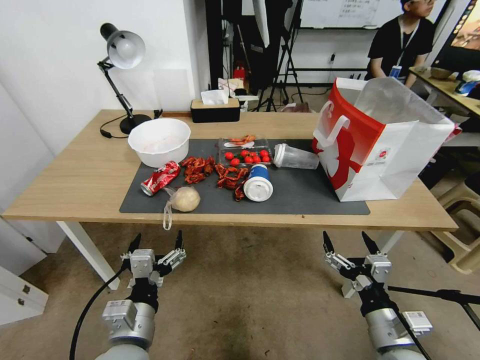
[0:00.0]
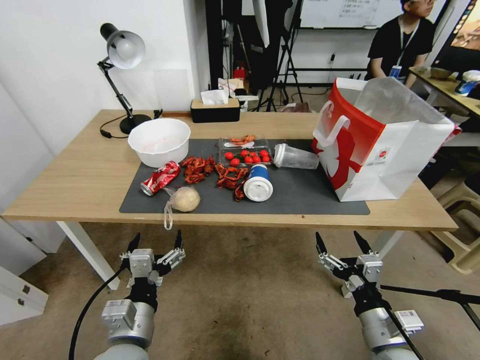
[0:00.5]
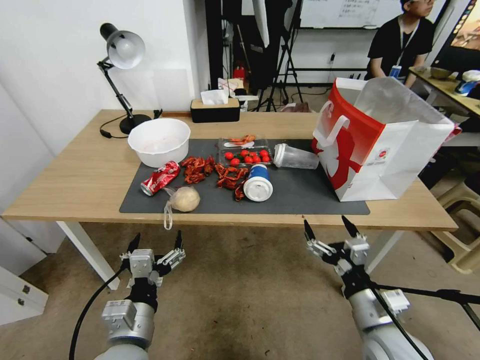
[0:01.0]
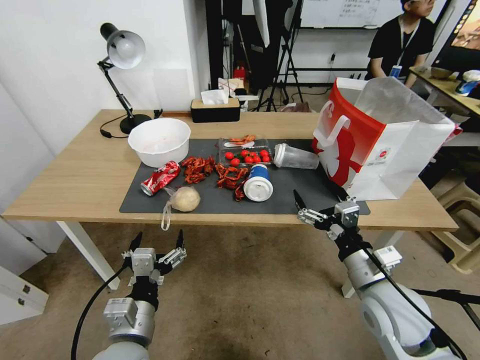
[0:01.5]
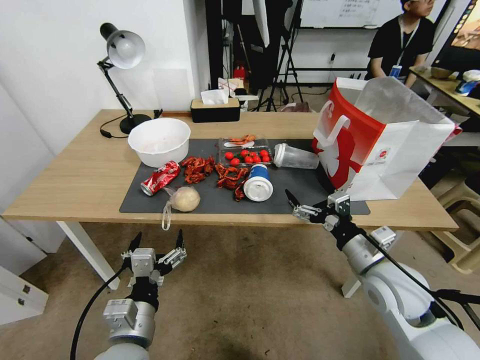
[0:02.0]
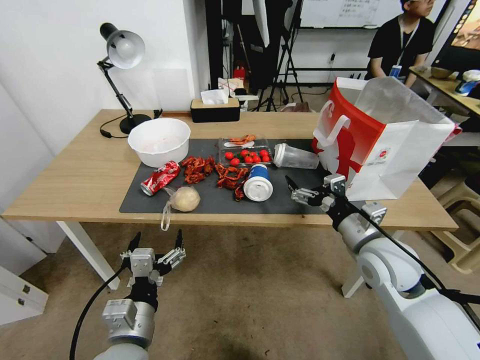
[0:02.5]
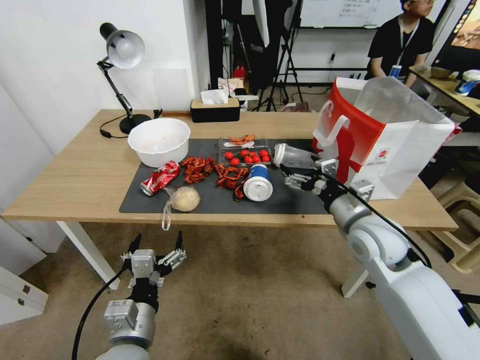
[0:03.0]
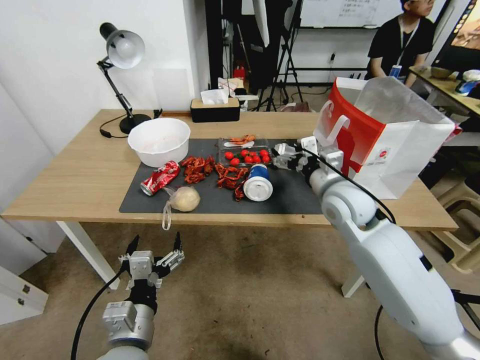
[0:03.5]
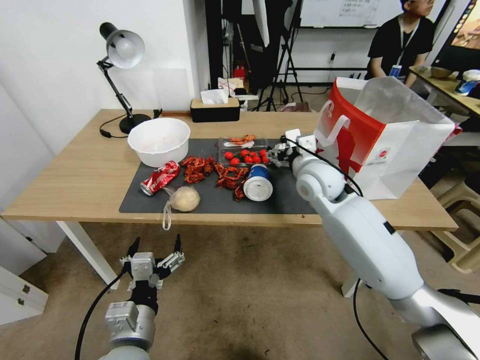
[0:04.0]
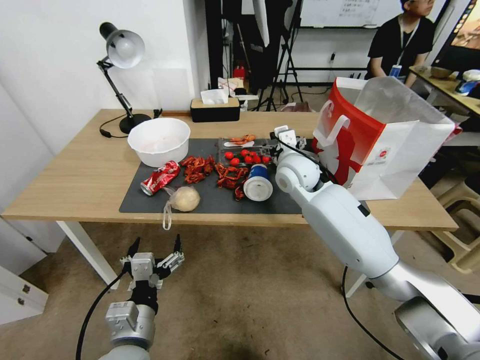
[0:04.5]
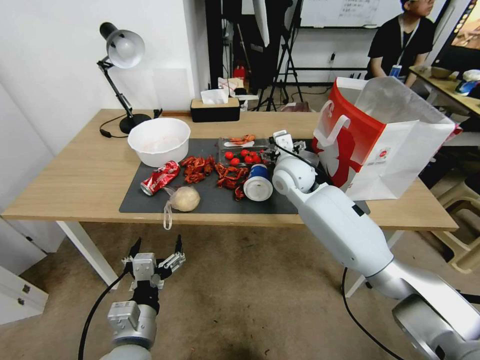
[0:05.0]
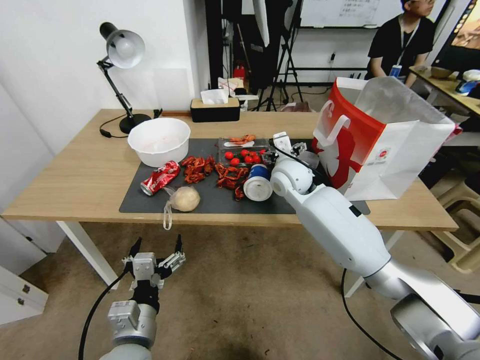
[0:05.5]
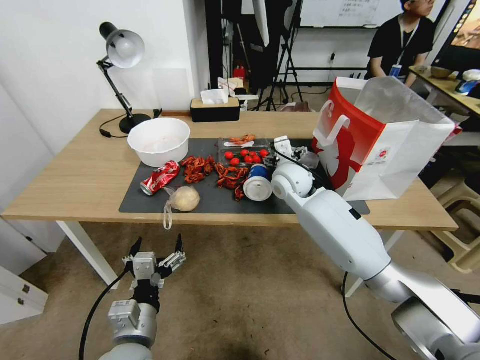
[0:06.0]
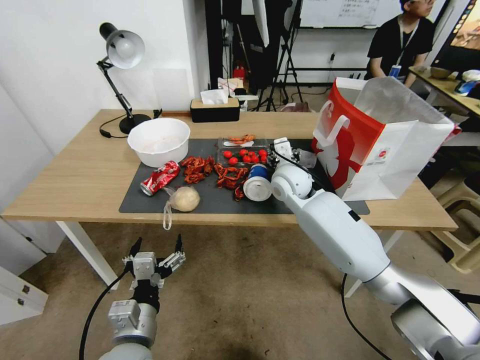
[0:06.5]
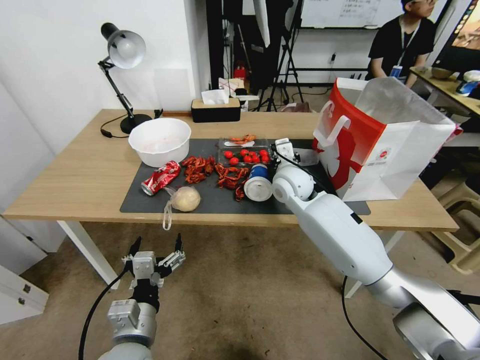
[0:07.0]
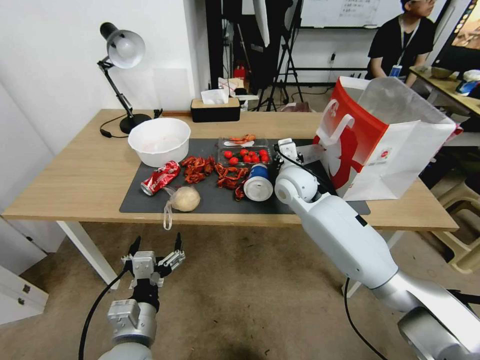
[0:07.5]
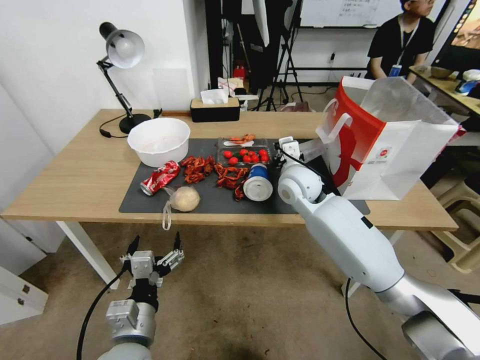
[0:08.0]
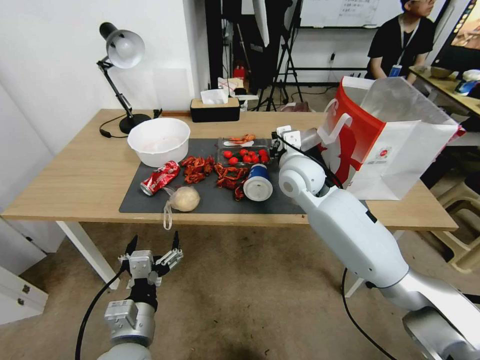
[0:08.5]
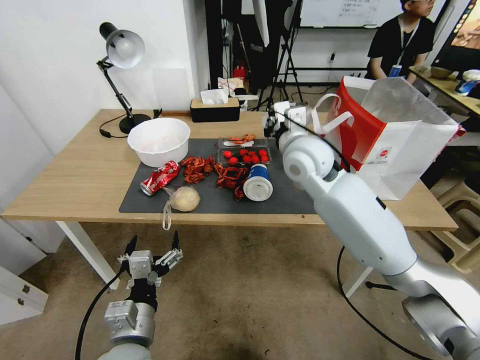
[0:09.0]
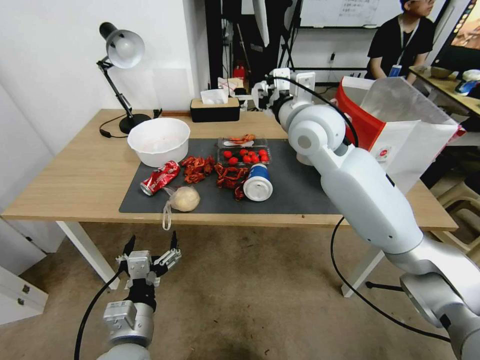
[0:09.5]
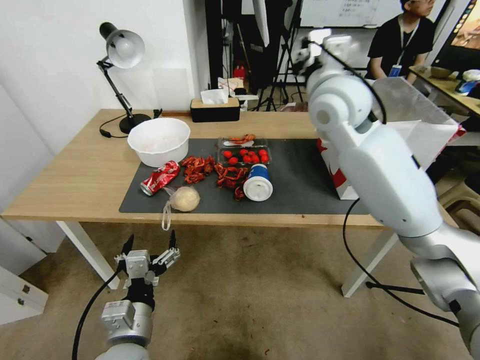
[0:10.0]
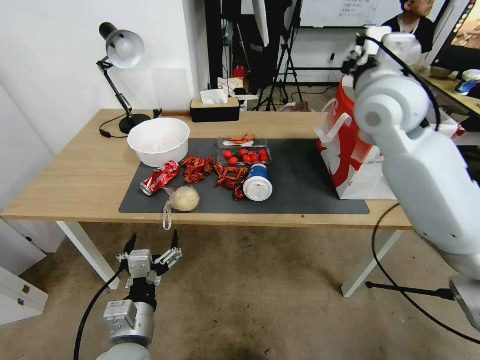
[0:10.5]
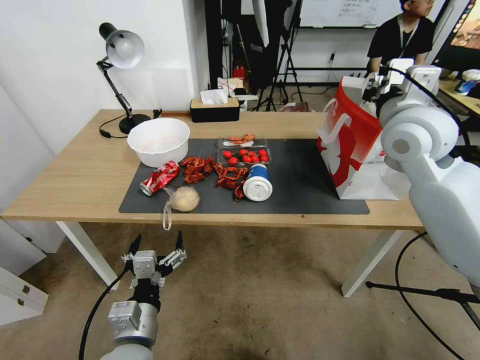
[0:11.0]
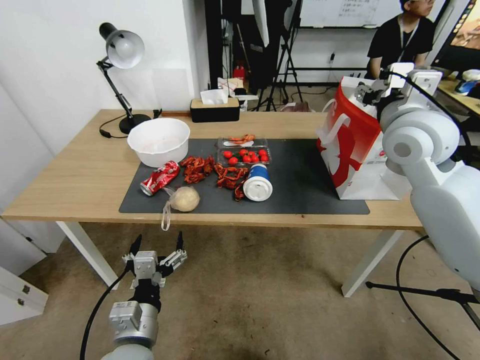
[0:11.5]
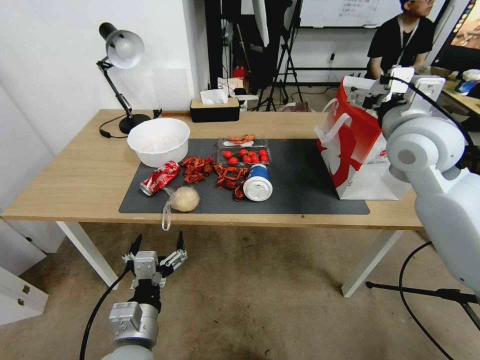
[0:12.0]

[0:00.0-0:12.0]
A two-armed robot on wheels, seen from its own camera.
0:00.0 to 0:02.0: The right gripper heads forward and upward, covering some 15 cm.
0:02.0 to 0:04.0: The right gripper heads forward, upward and to the left, covering about 20 cm.
0:04.0 to 0:06.0: The right gripper heads to the left and forward, covering some 10 cm.
0:06.0 to 0:08.0: The right gripper closes up.
0:08.0 to 0:10.0: The right gripper shifts approximately 20 cm upward.
0:10.0 to 0:12.0: The right gripper is displaced to the right and backward by about 15 cm, and opens its fingers.

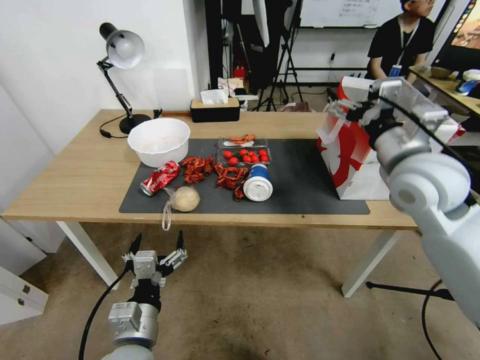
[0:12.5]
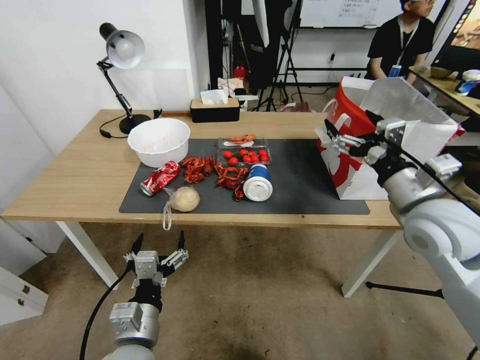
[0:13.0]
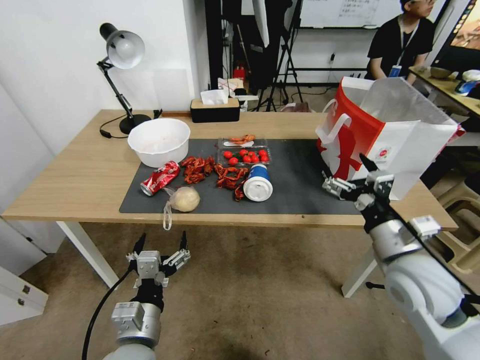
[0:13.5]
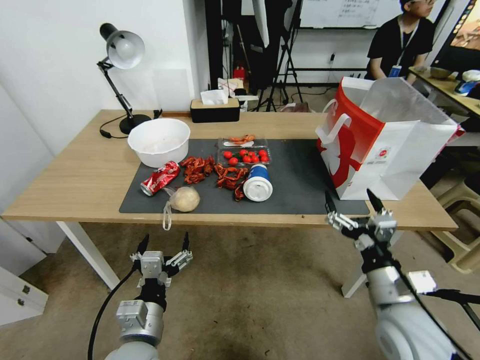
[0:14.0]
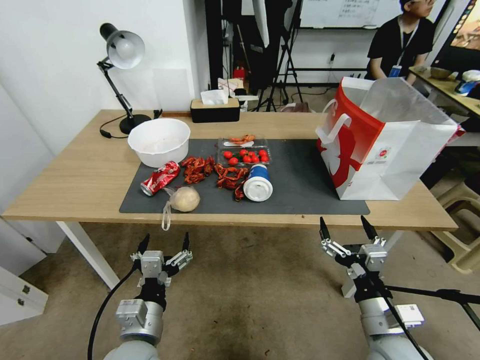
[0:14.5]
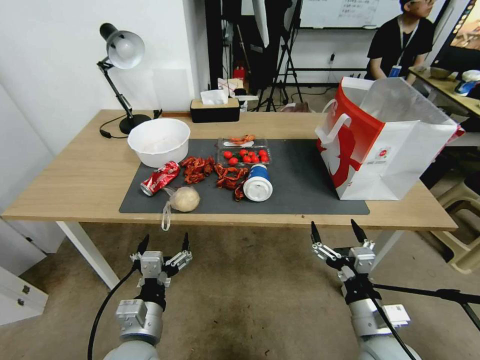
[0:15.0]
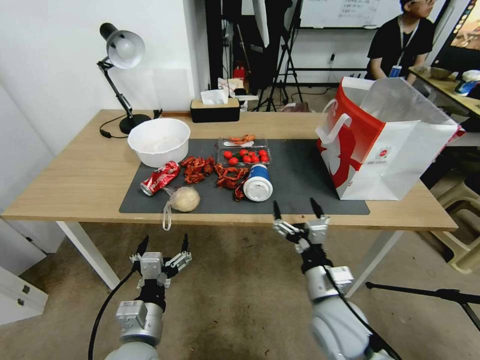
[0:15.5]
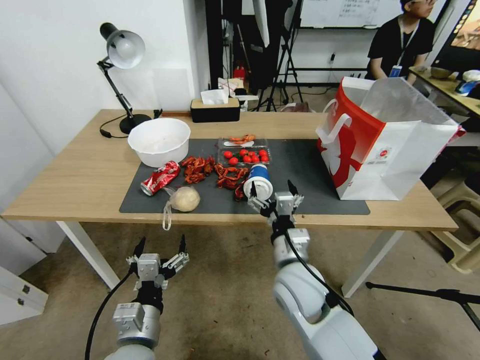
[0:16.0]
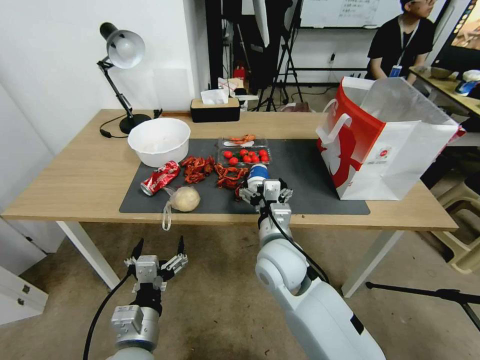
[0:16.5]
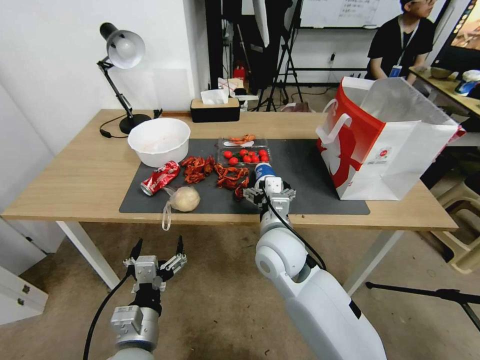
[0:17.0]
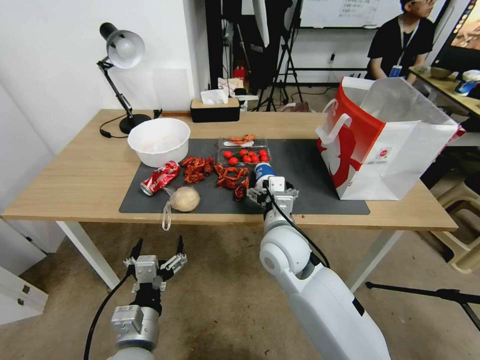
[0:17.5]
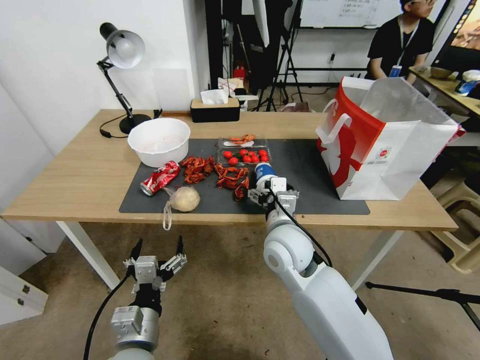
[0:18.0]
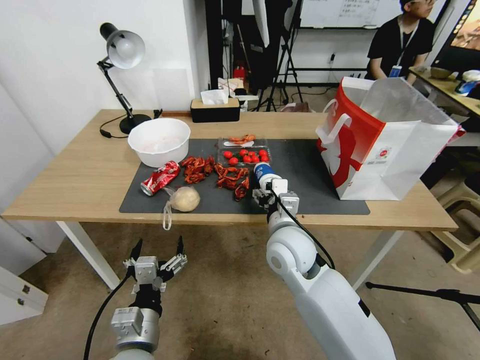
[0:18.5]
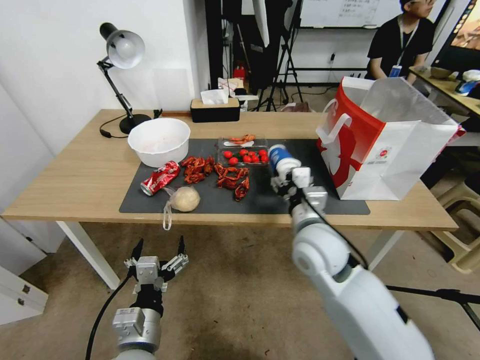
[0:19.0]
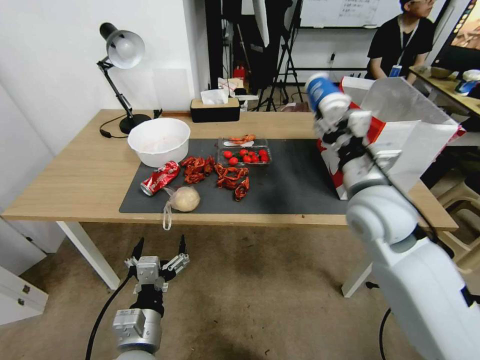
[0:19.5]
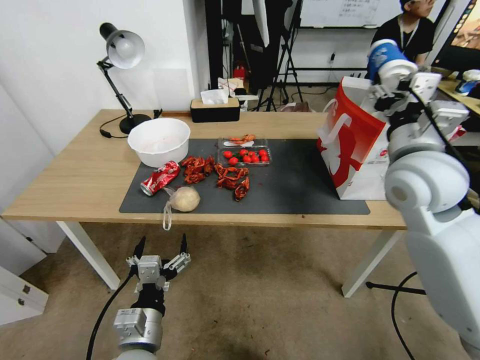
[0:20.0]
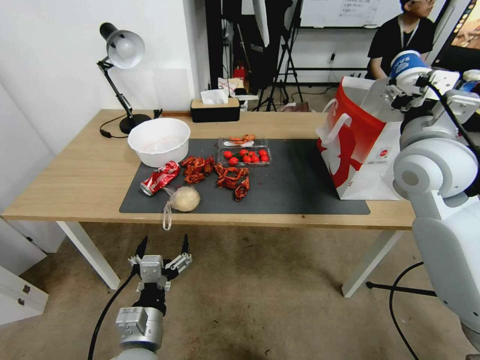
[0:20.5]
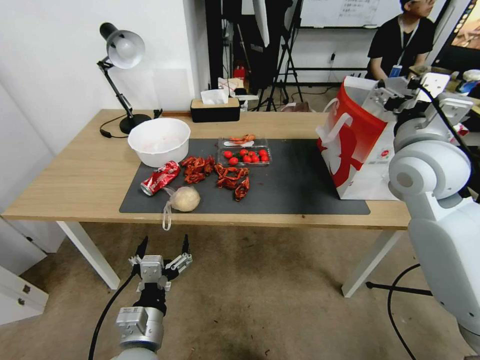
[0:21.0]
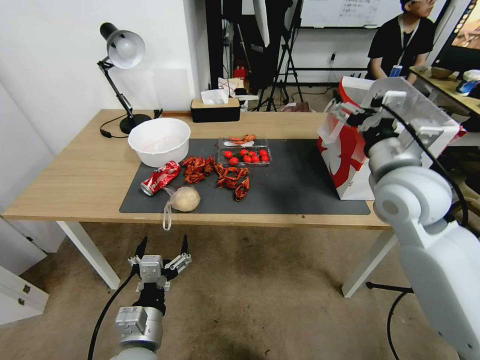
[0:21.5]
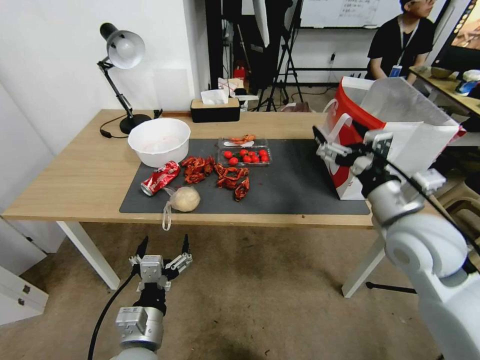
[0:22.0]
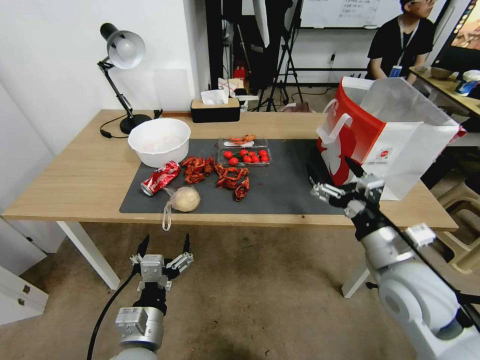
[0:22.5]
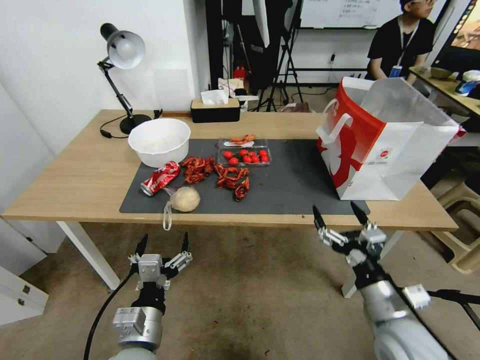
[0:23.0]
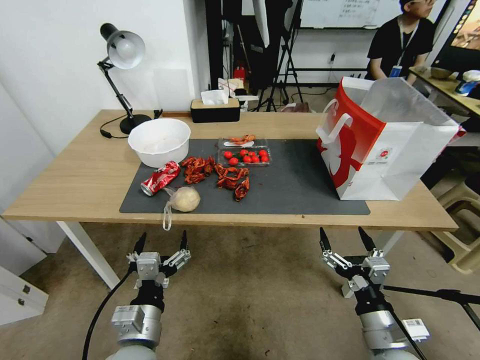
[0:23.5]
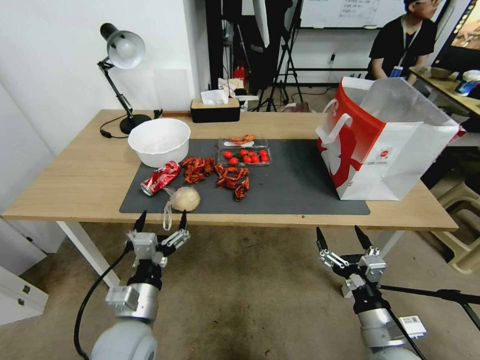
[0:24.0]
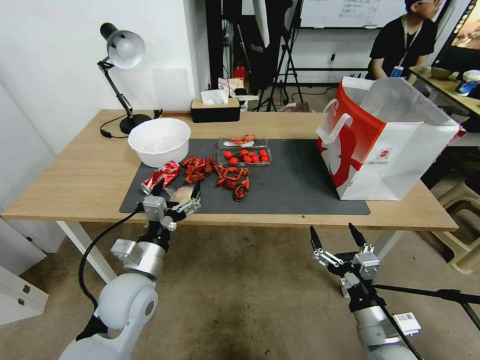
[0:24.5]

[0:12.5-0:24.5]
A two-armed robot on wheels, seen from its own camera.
0:12.5 to 0:14.5: The right gripper is displaced downward and backward by some 35 cm.
0:14.5 to 0:16.5: The right gripper heads to the left and forward, covering roughly 25 cm.
0:16.5 to 0:18.5: There are only small adjustments of the grippers.
0:18.5 to 0:20.5: The right gripper moves to the right and upward, some 30 cm.
0:20.5 to 0:22.5: The right gripper shifts about 20 cm downward and backward.
0:22.5 to 0:24.5: The left gripper travels forward by about 10 cm. The right gripper moves downward and backward, some 15 cm.

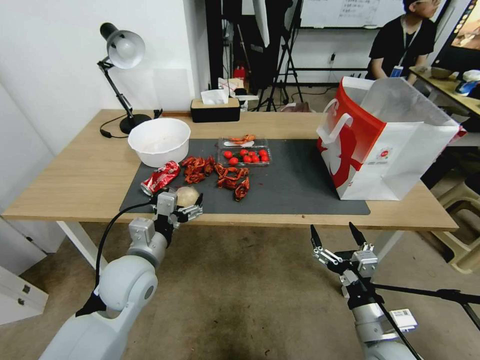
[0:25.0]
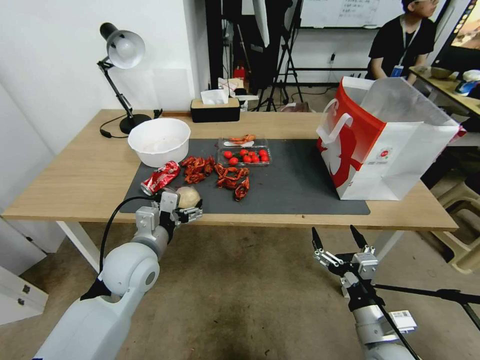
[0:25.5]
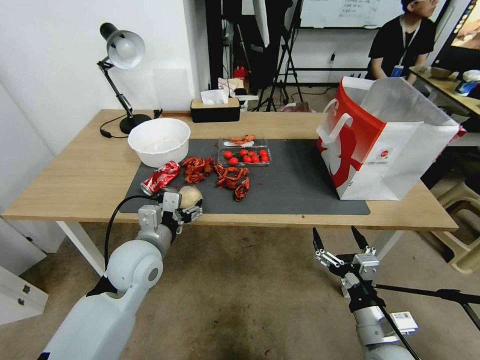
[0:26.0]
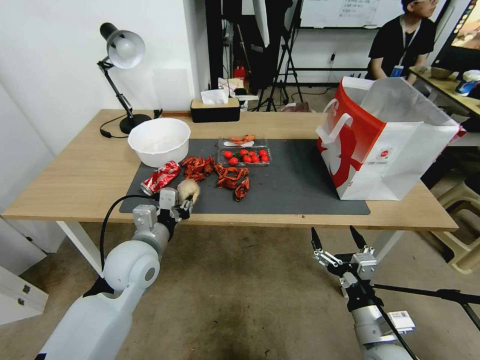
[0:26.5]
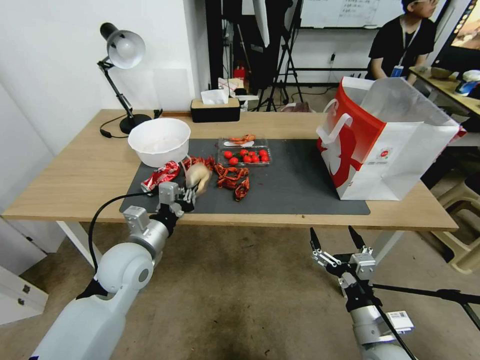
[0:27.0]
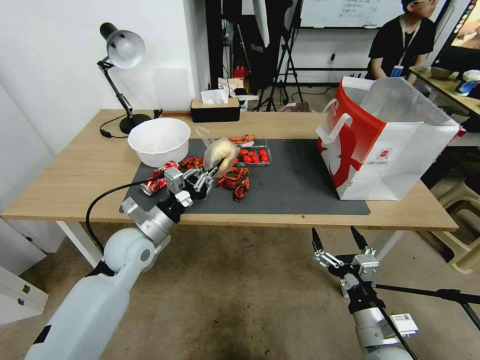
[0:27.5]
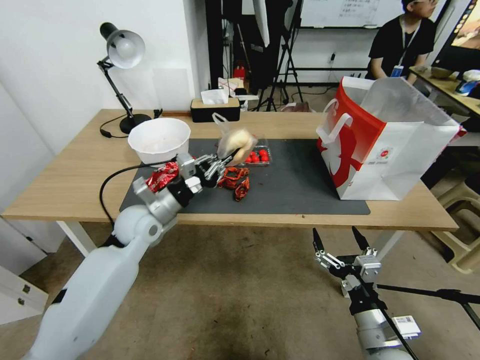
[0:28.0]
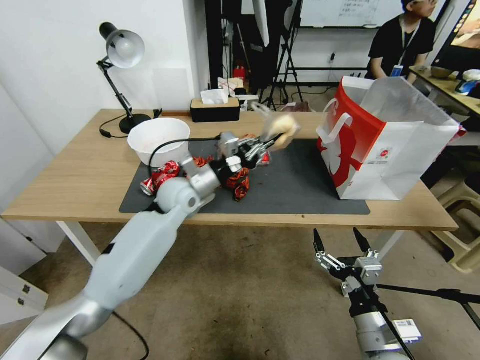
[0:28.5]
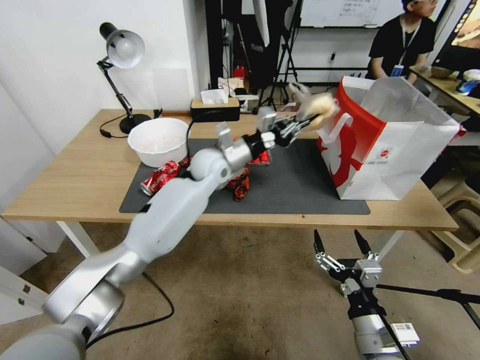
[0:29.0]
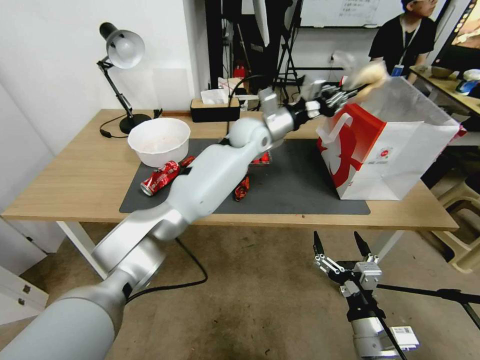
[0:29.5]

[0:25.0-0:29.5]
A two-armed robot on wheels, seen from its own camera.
0:25.0 to 0:27.0: The left gripper closes up.
0:27.0 to 0:29.5: The left gripper shifts about 30 cm forward and to the right.
